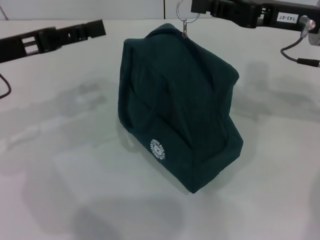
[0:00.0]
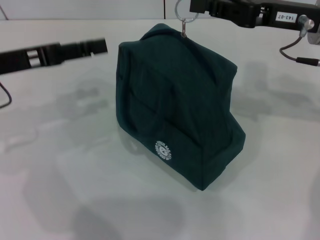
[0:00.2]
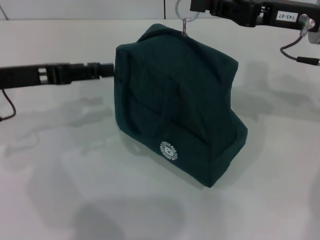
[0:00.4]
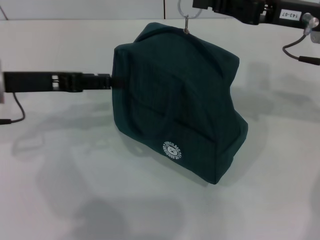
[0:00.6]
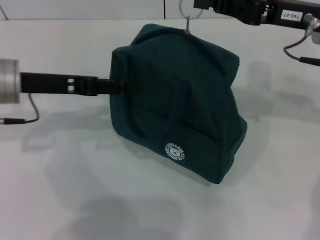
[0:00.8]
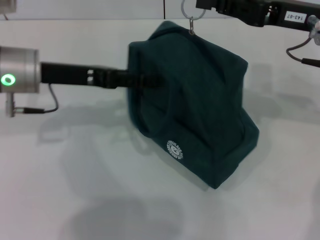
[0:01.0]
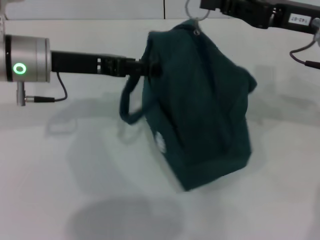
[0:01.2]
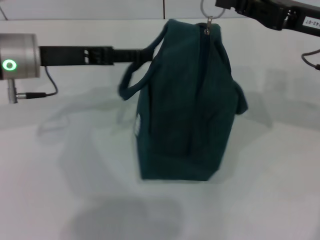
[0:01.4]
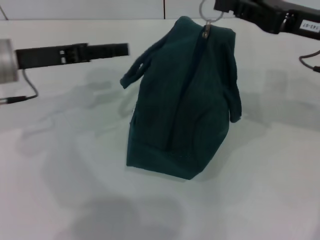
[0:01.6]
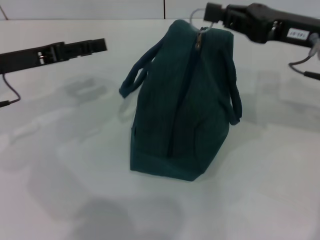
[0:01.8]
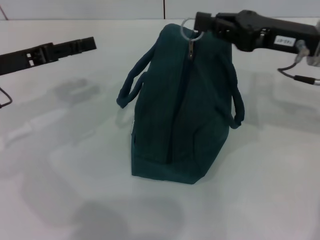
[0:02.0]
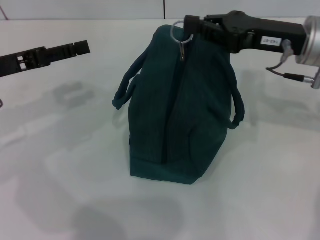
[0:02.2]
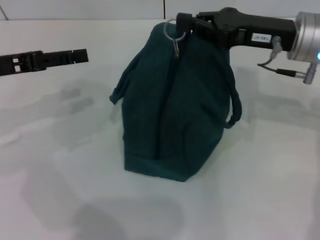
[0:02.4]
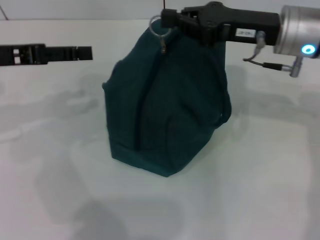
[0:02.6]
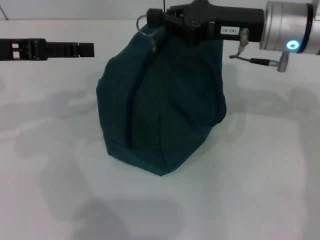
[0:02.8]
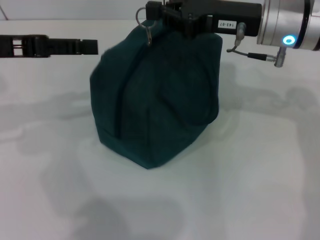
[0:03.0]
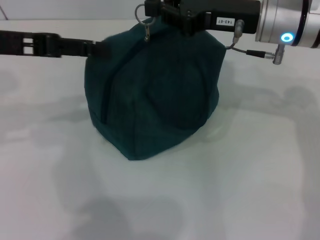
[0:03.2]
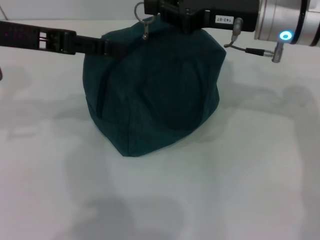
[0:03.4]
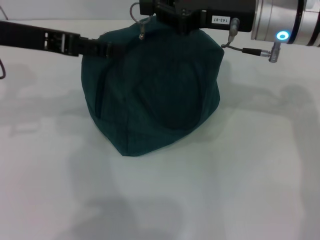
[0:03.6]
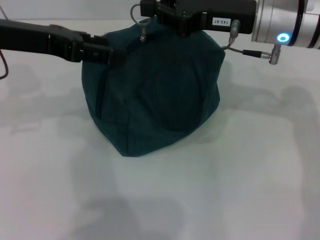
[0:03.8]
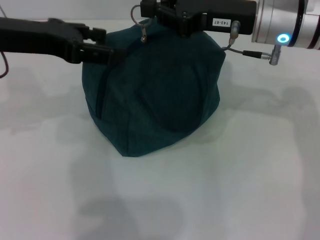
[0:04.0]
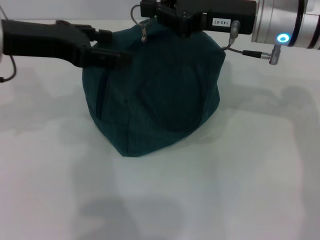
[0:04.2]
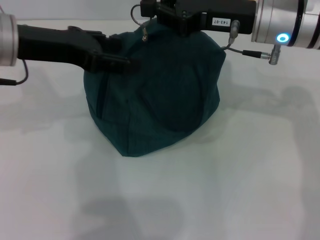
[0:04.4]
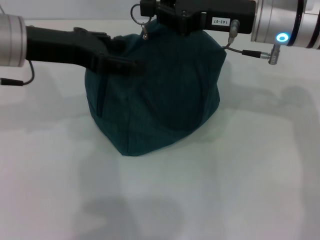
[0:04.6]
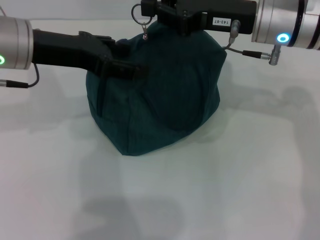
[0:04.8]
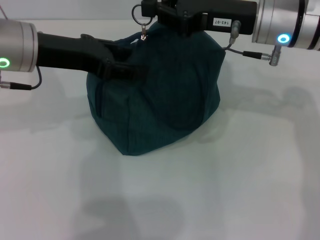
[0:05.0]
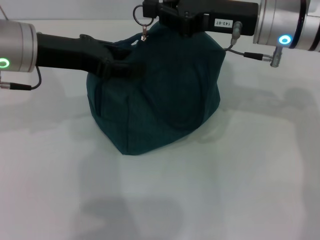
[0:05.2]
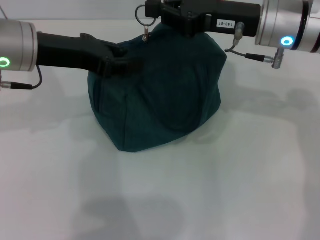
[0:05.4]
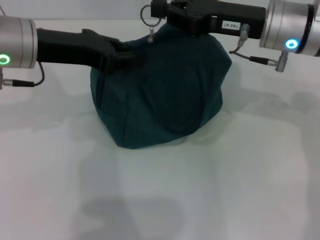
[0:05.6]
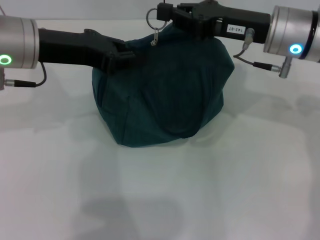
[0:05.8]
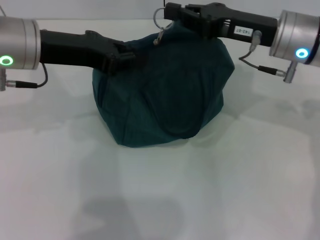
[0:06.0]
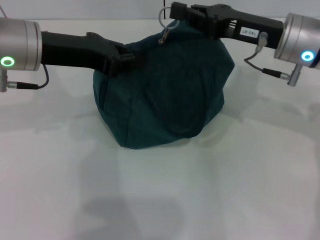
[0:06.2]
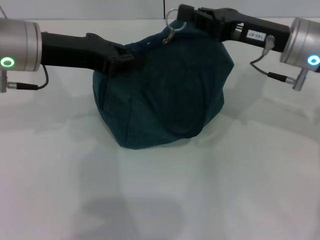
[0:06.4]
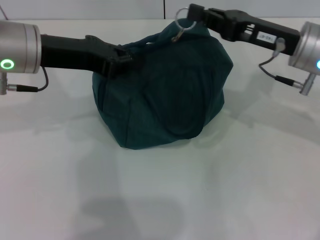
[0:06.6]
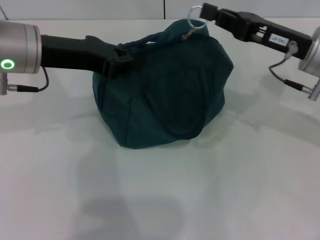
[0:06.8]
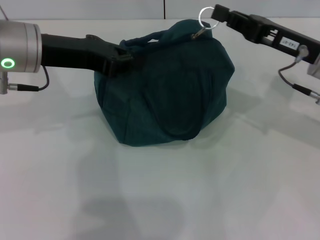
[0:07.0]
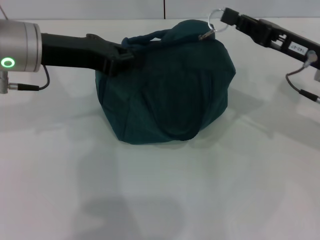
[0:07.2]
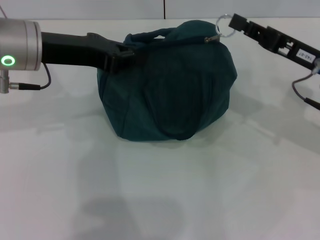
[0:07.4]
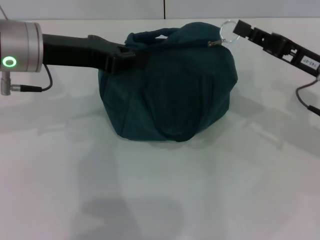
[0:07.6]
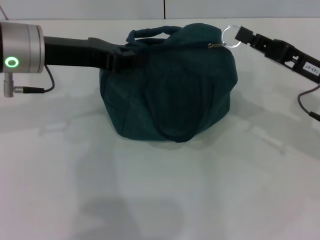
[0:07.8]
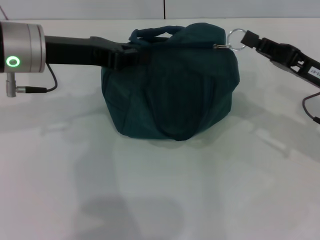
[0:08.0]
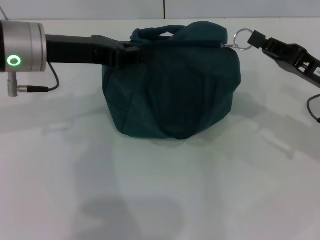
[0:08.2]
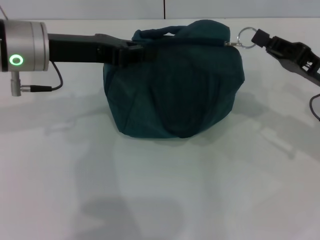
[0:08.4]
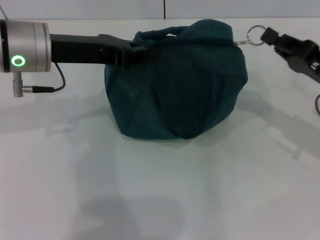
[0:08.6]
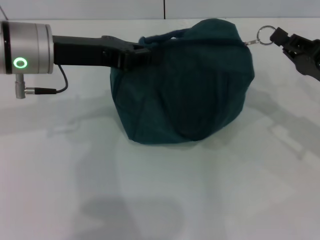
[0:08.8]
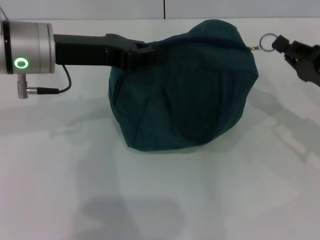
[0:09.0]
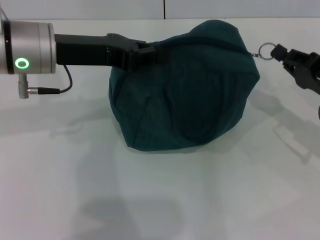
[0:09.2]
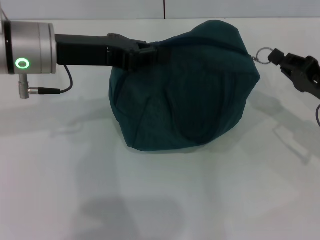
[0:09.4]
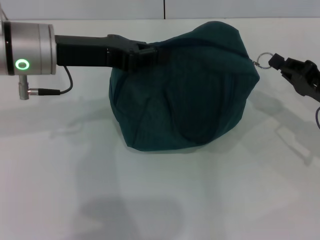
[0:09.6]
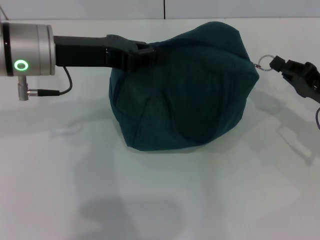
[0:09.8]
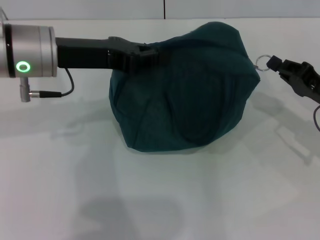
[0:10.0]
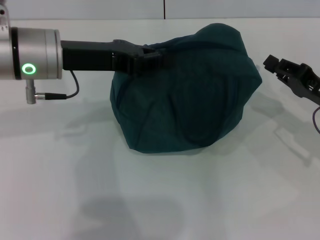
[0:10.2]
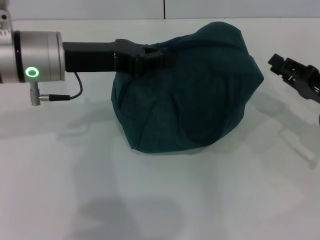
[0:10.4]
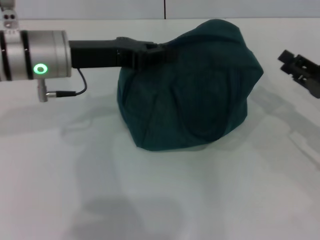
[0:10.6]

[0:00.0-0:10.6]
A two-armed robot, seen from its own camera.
Step, 0.0 to 10.0 s: Zip up the lunch bag with your right hand.
1.6 to 3.0 s: The right gripper shifts approximately 10 cm to the left. Meanwhile the left gripper moves upward, roughly 5 cm.
3.0 to 4.6 s: The left gripper is displaced to the right by about 5 cm.
4.6 to 6.0 s: The left gripper closes its fingers.
6.0 to 7.6 s: The right gripper travels to the right and downward by some 10 cm.
7.6 to 9.0 s: The right gripper moves some 5 cm.
9.0 to 10.6 s: The grippers stay close to where they were, moving slightly.

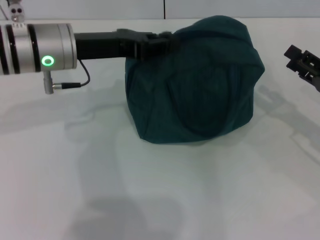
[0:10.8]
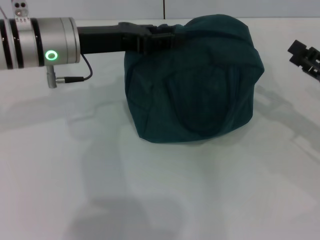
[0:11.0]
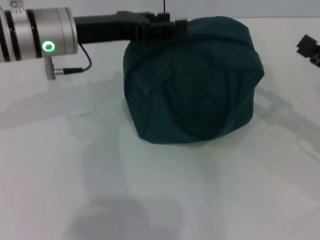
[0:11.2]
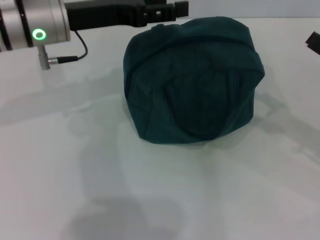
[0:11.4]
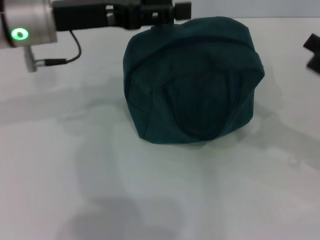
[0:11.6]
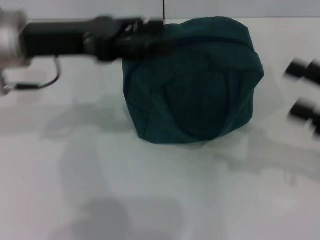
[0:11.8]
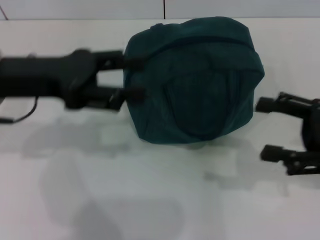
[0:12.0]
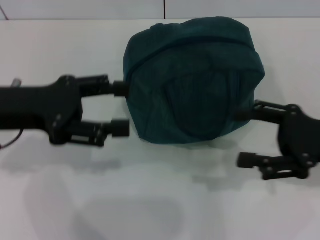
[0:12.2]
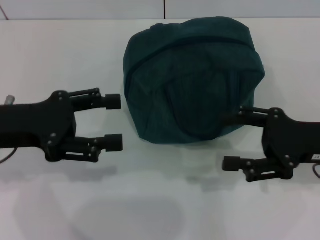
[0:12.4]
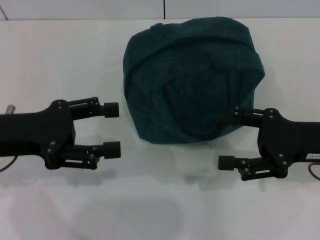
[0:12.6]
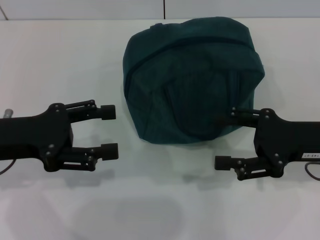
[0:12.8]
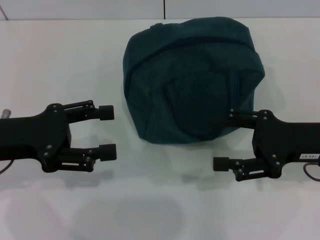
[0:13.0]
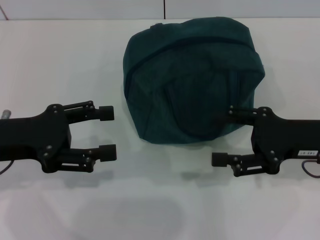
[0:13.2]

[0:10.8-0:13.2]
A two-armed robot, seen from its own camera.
10.8 to 12.0 s: The left gripper goes approximately 10 cm backward and to the left, and opens, while the right gripper shifts about 5 cm upward, and opens.
12.0 to 13.2 s: The left gripper goes about 5 cm downward. Meanwhile the right gripper ends up approximately 5 cm from where it was.

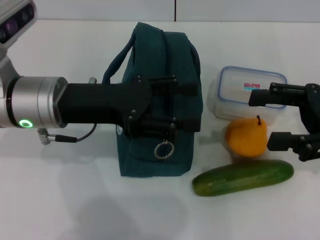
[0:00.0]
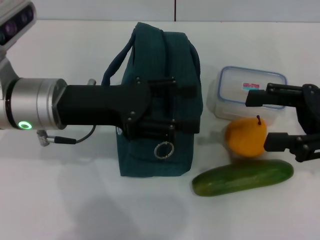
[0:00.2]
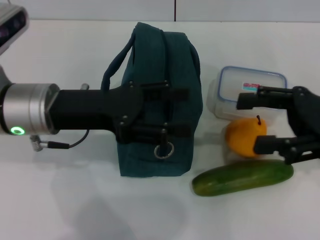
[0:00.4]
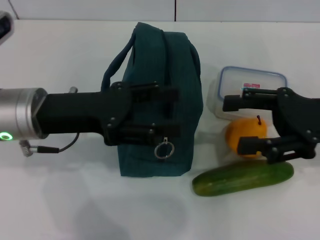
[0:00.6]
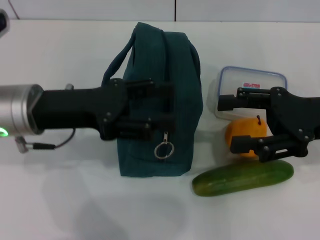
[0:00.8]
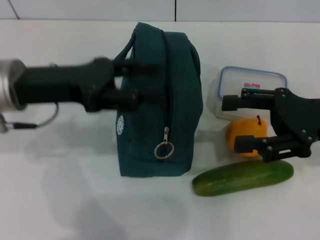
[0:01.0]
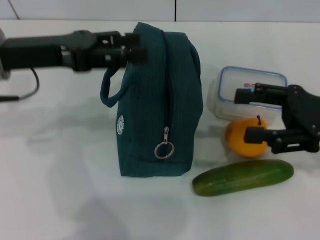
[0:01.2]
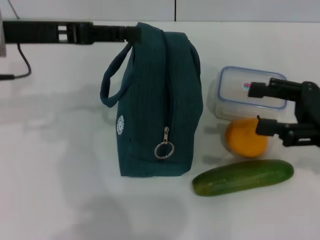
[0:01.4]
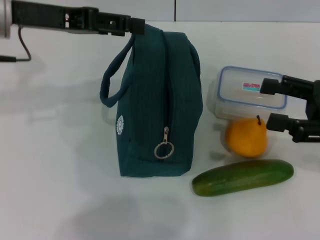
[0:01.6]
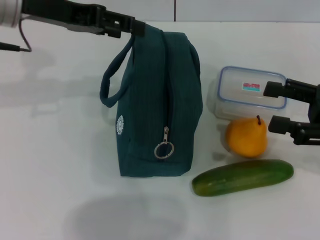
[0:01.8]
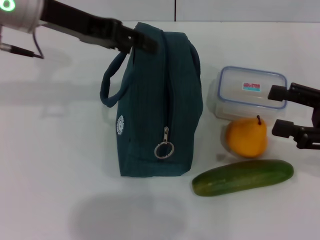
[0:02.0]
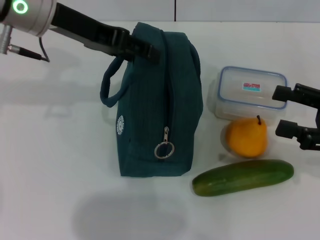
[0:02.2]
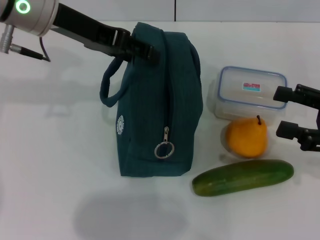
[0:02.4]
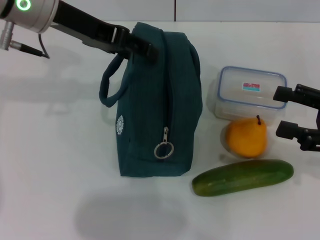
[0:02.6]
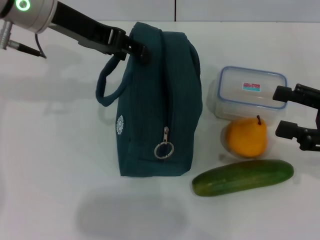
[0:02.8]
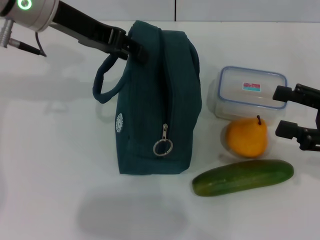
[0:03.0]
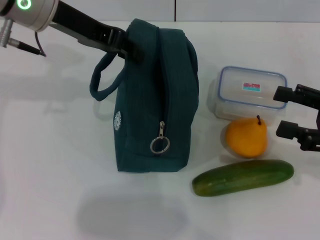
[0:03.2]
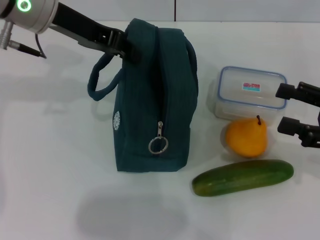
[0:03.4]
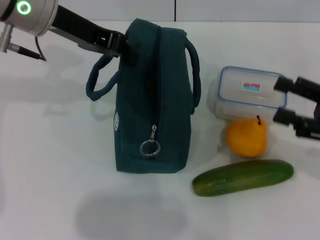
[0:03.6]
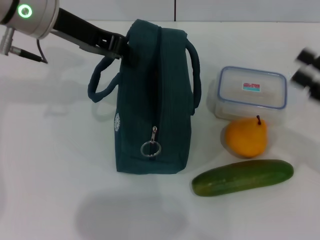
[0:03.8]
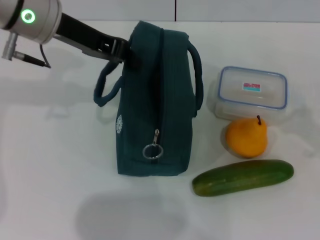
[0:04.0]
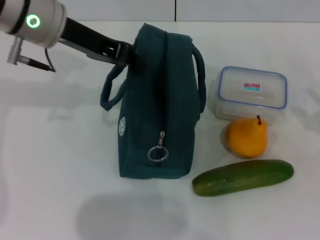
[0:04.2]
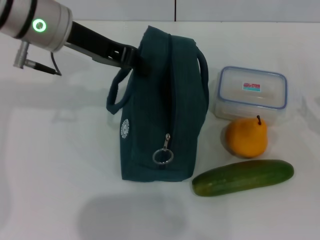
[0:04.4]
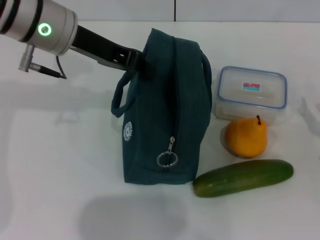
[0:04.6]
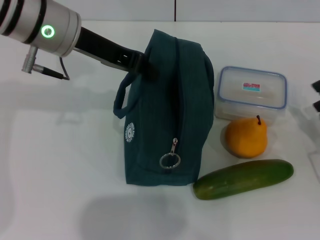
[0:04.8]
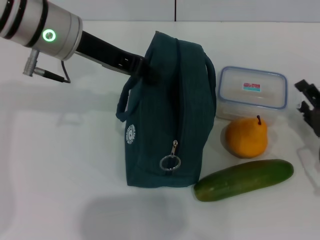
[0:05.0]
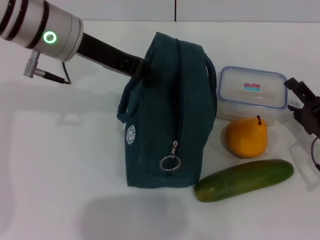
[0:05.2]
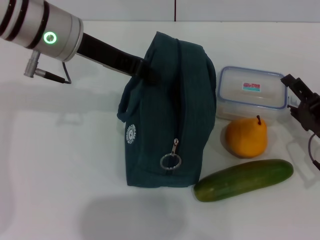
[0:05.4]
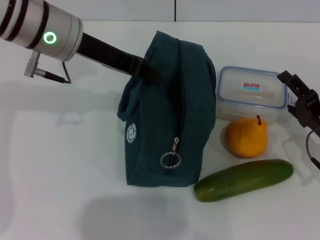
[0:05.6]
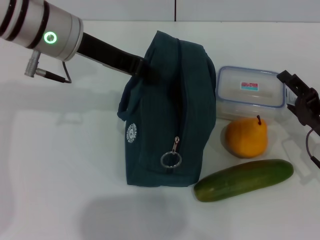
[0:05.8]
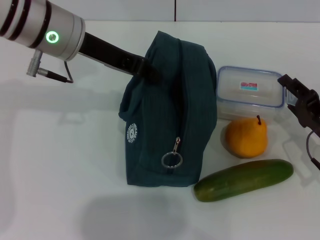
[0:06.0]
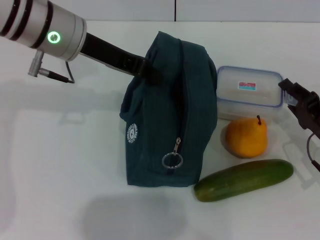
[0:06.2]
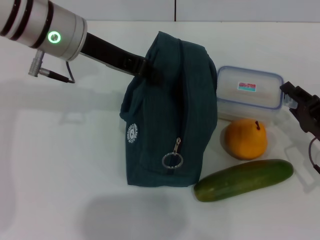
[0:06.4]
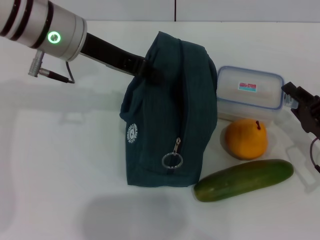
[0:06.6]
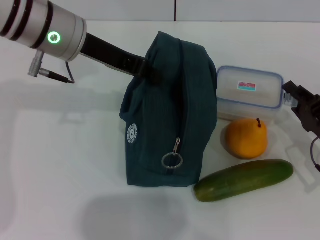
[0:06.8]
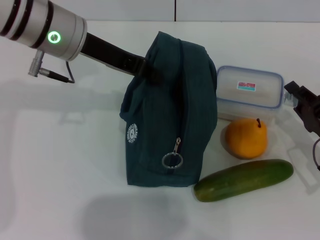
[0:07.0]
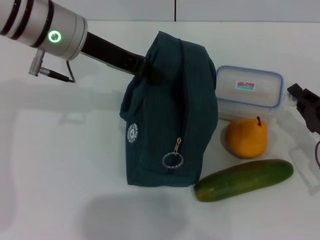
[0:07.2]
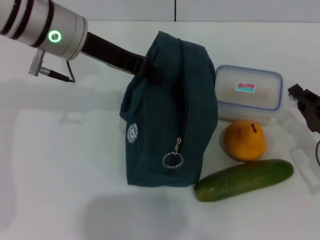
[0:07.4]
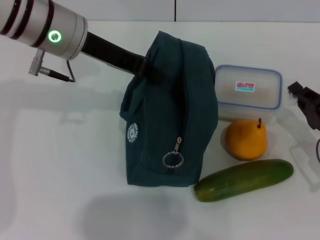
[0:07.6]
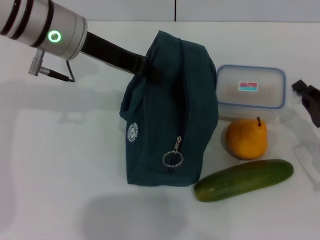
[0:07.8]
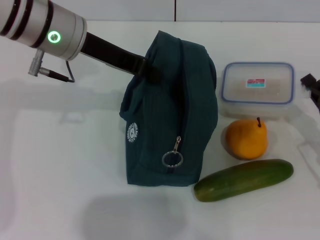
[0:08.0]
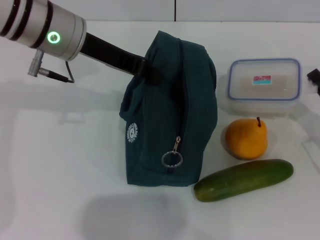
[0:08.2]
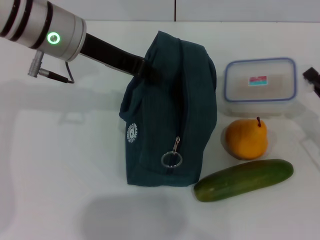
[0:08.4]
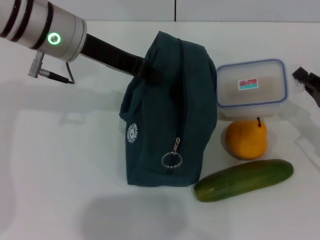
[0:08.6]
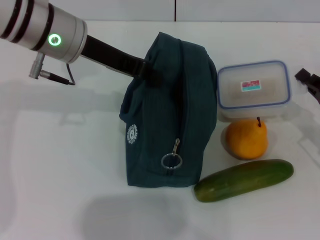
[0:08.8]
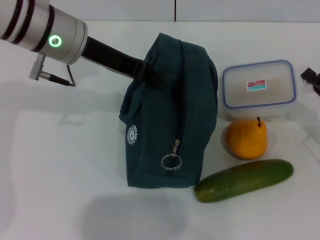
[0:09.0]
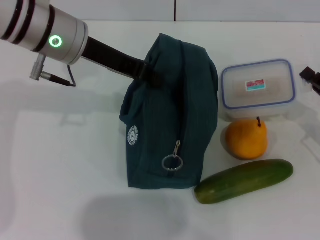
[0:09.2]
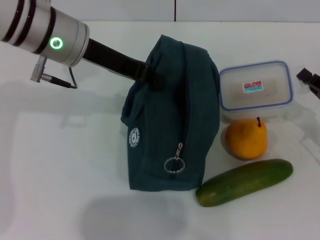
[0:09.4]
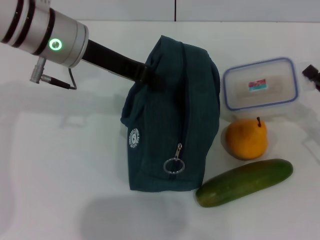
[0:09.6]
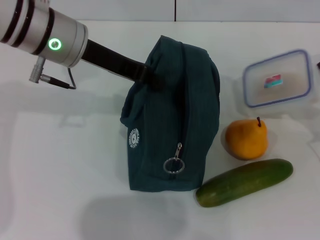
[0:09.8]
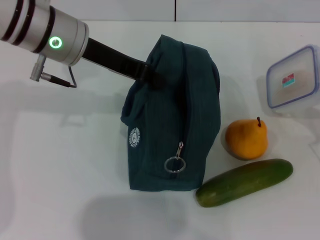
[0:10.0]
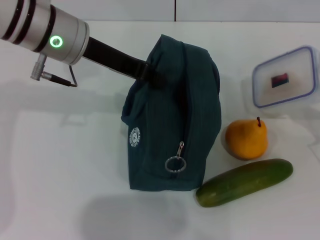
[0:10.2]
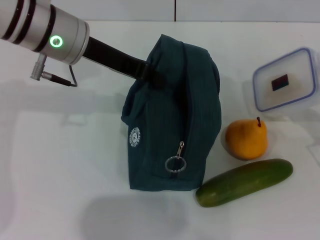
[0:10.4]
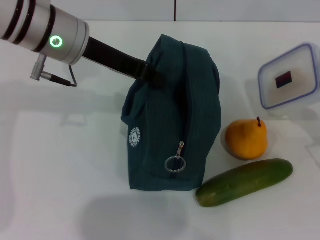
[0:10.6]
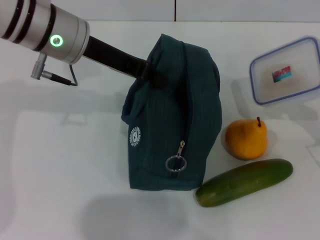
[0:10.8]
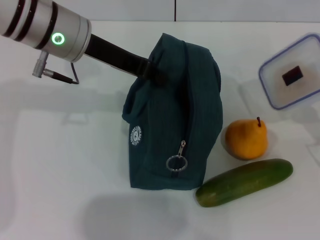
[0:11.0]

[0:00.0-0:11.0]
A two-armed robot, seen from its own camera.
Step, 0.0 to 5.0 s: Hold the lunch bag with your left hand.
0.0 to 1.6 s: The left gripper moves upward, forward and to the left, about 10 cm.
1.6 to 3.2 s: The left gripper goes some 5 cm to the right.
3.2 to 4.8 s: The left gripper closes up. The right gripper shifts some 10 cm downward.
4.8 to 6.2 s: The grippers make only small movements.
6.2 to 7.8 s: The right gripper closes up.
7.8 to 9.4 s: The grippers stay close to where they were, moving slightly.
9.4 to 11.0 s: There are only small adjustments of the grippers.
